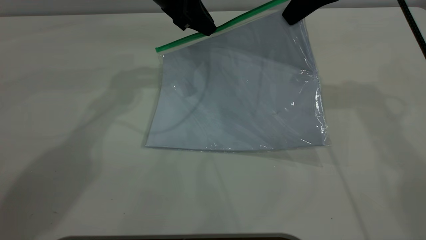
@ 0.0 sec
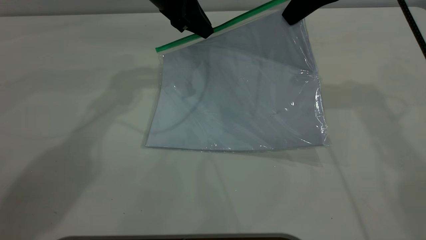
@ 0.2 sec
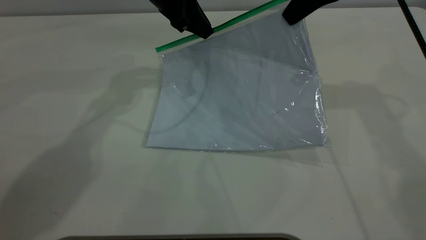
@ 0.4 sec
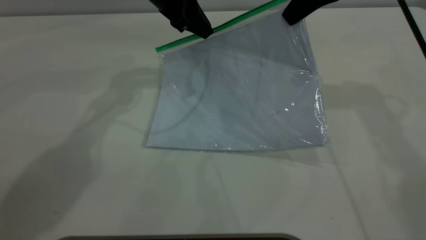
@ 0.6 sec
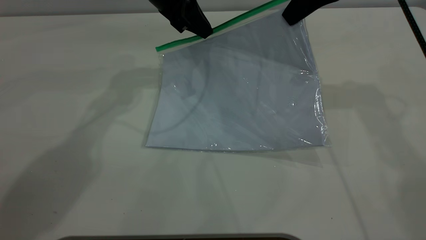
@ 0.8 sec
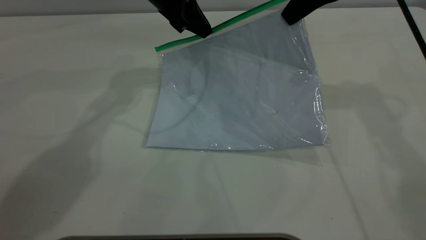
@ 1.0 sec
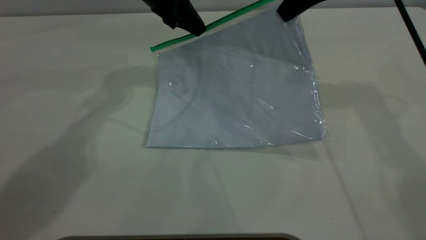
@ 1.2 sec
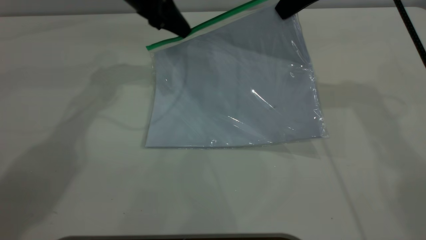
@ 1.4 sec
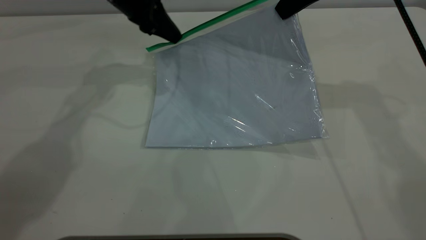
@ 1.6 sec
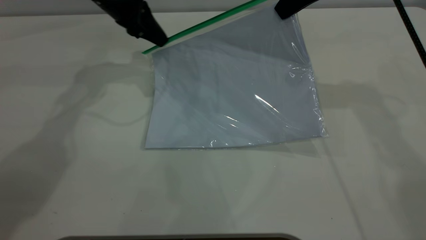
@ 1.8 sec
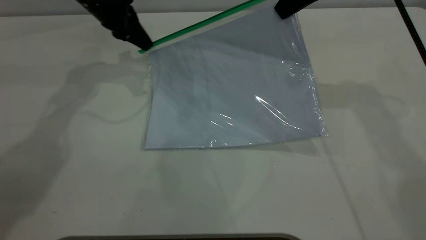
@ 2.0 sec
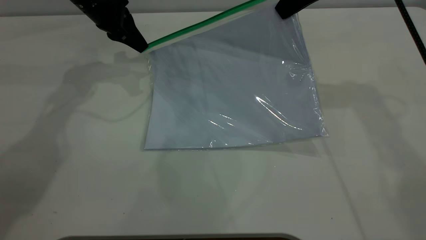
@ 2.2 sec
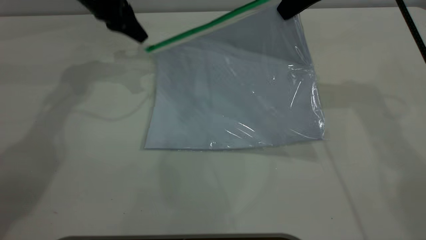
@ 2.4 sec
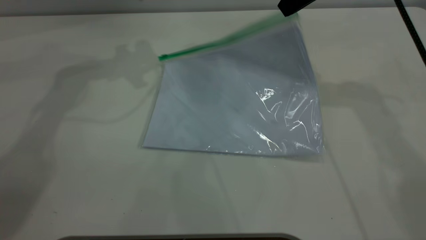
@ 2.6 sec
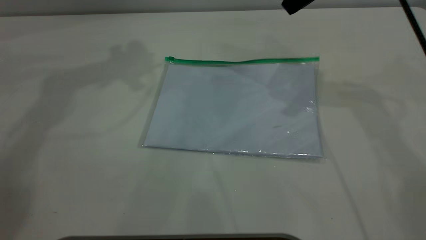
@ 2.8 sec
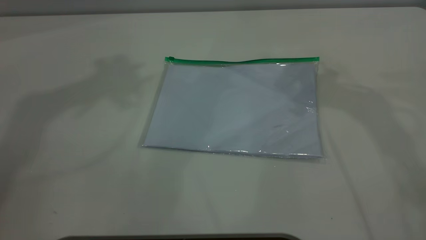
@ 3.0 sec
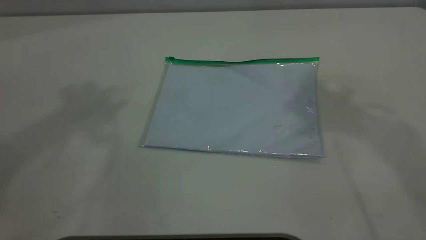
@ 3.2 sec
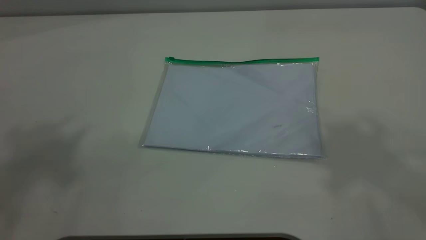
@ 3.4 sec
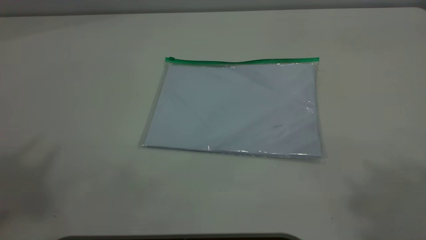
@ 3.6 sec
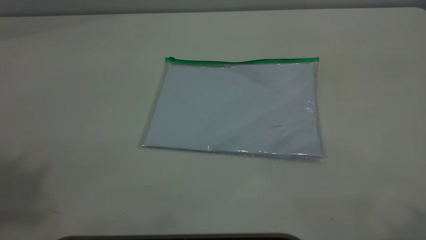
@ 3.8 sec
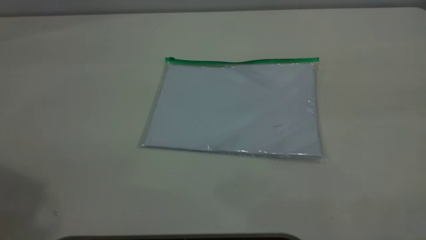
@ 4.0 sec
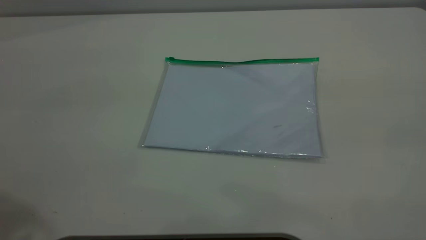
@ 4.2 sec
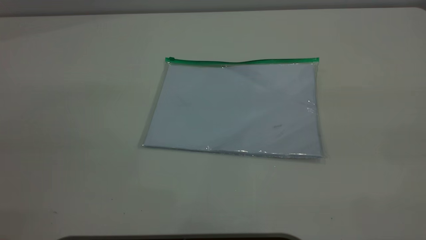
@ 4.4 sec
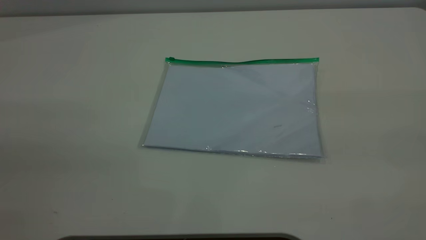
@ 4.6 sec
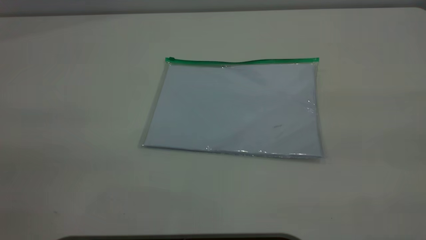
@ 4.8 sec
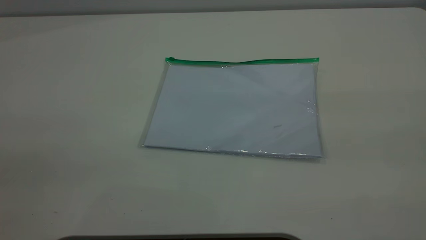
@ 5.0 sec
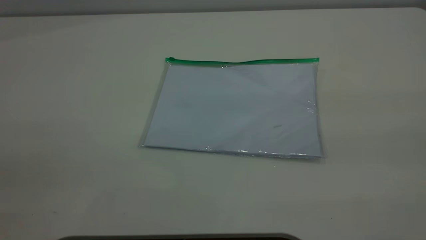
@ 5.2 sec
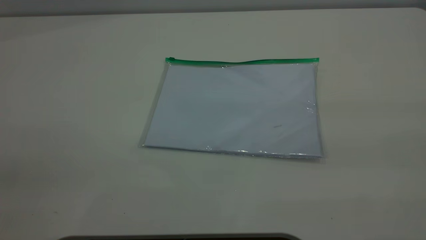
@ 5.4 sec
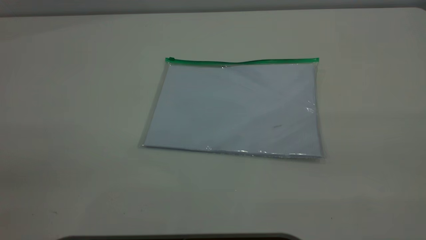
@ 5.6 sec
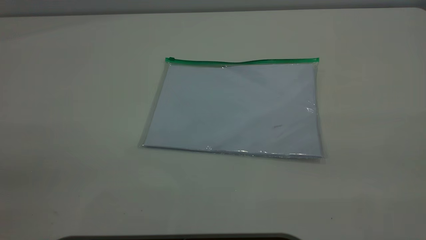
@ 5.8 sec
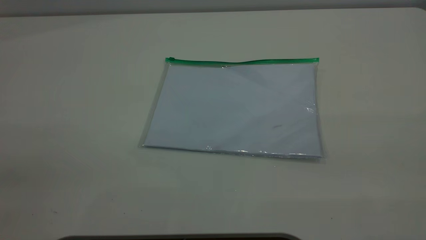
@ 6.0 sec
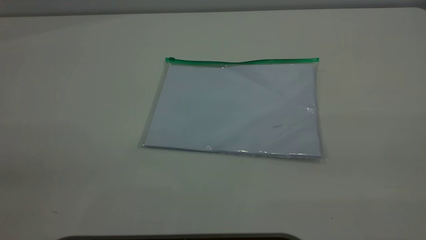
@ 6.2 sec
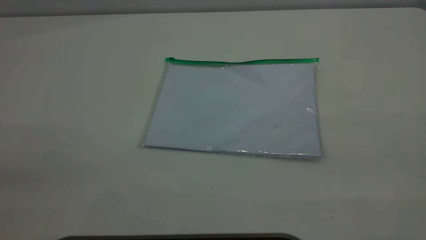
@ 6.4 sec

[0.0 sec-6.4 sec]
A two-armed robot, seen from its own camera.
Step, 0.0 sec to 2.4 sec: Pulling up the zipper on the transparent plastic bag with the left gripper to close it.
0.0 sec to 1.6 sec: The left gripper goes some 5 cm to the left.
1.6 sec to 3.2 sec: The right gripper travels upward and backward by approximately 25 cm, and opens. The left gripper travels upward and backward by about 50 cm, and opens its fingers.
